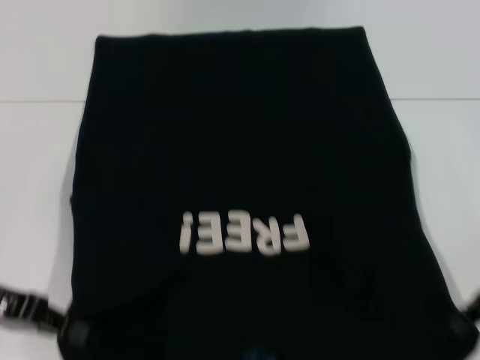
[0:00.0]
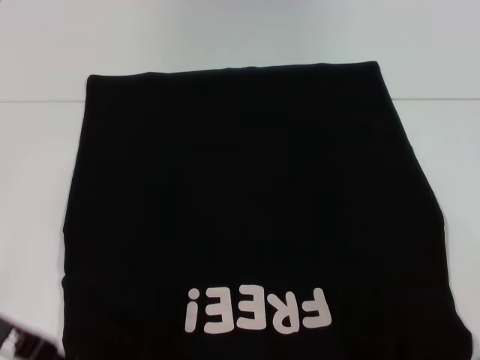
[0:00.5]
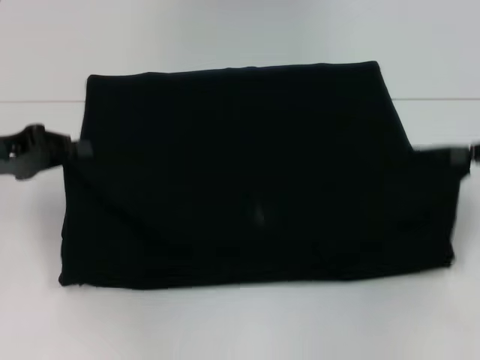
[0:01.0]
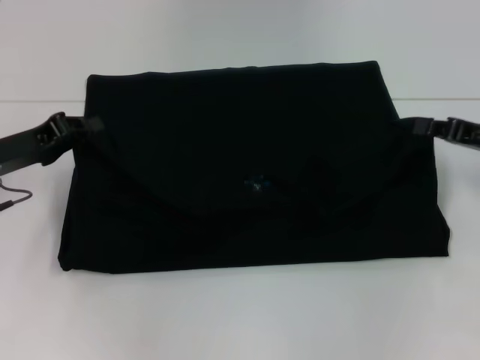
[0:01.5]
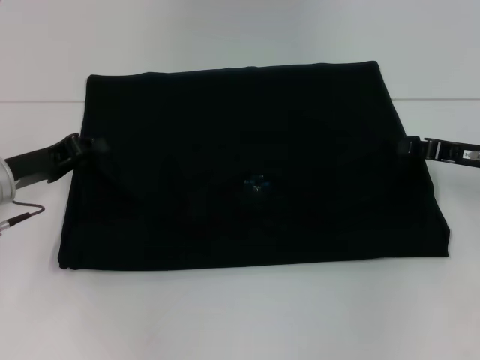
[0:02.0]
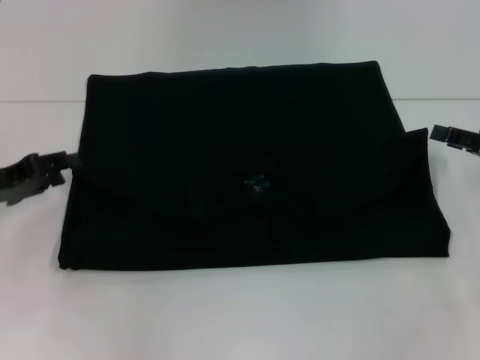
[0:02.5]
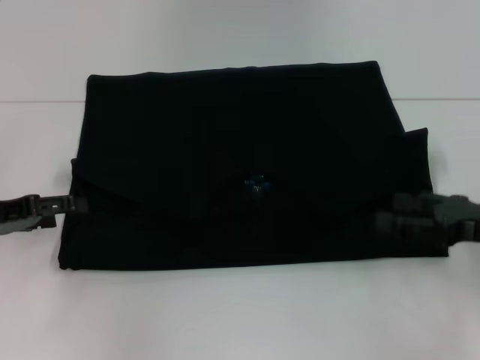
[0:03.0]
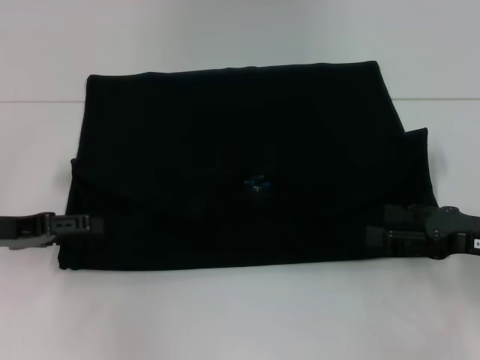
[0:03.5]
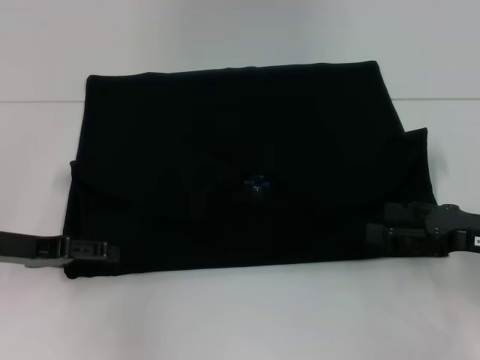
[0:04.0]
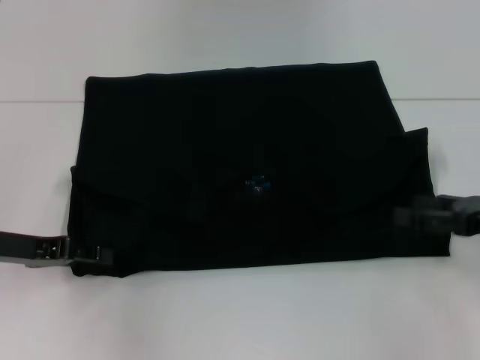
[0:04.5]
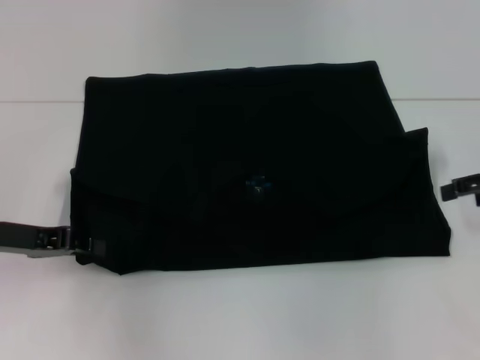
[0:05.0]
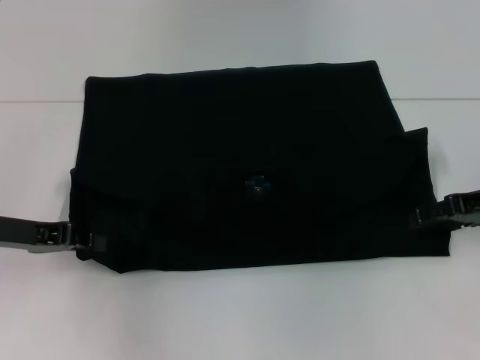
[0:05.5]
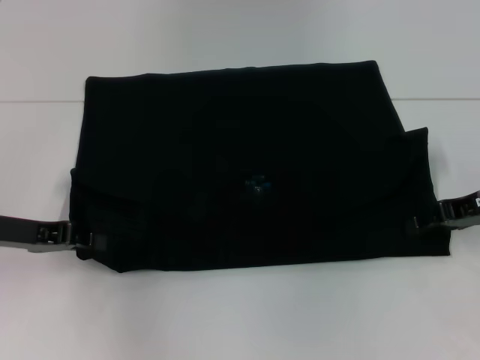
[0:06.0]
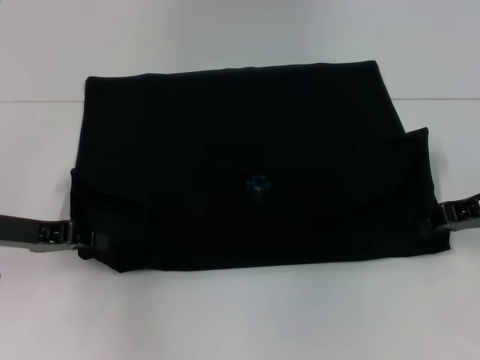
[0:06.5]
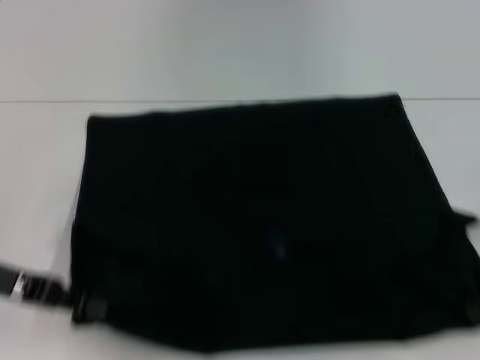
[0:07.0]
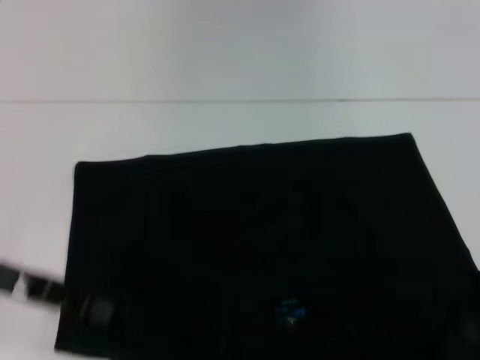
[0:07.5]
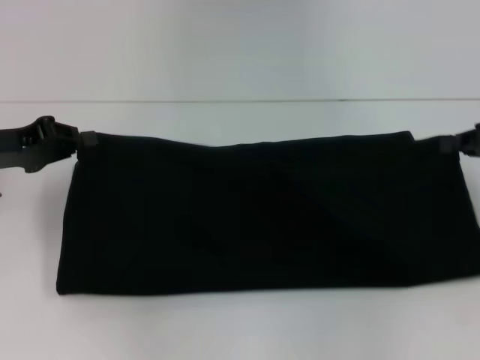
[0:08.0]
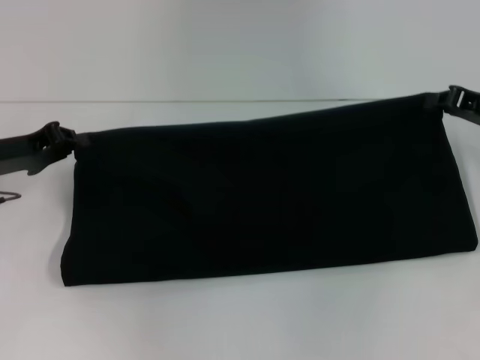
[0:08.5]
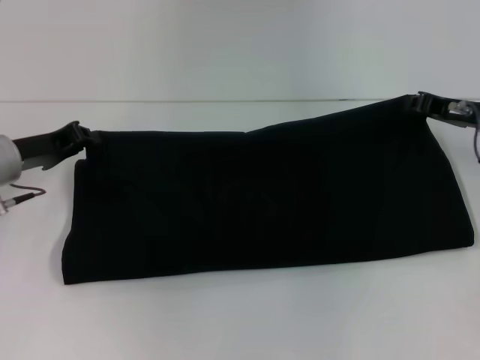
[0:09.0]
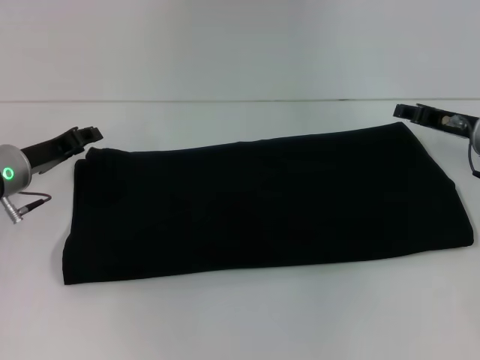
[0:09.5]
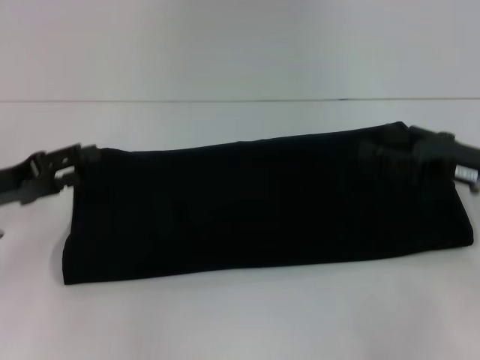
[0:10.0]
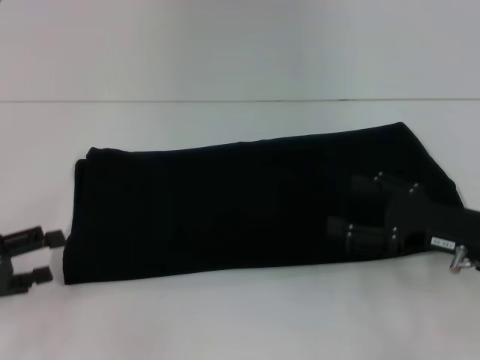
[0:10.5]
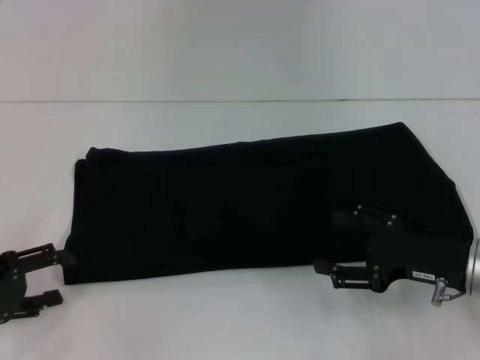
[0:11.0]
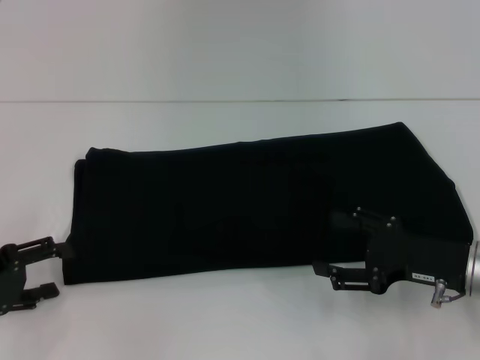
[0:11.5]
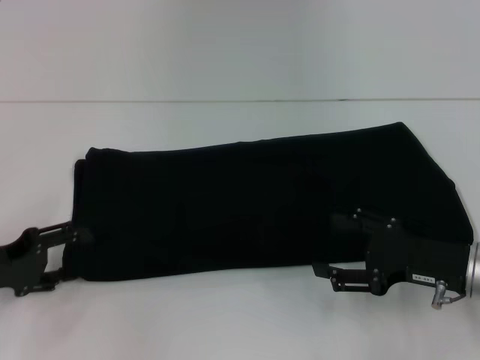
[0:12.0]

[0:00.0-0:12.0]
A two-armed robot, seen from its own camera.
Step, 0:00.0 to 0:02.5: Fold the clothes with your left hand.
Step, 0:00.0 to 0:02.5: Fold the clothes with your right hand.
Step, 0:03.0 to 0:07.0: Pull the clothes with your left hand.
Step, 0:03.0 to 0:07.0: Pull the clothes with your right hand.
Step, 0:07.5 to 0:09.5: Fold the clothes with your right hand.
0:00.0 to 0:02.0: The right gripper heads forward, covering approximately 5 cm, while the left gripper moves forward, approximately 10 cm.
0:02.0 to 0:04.0: The left gripper opens up, while the right gripper is displaced backward by roughly 10 cm, and opens.
0:04.0 to 0:06.0: The left gripper closes up, while the right gripper heads forward, covering about 10 cm.
0:06.0 to 0:08.0: The right gripper ends up approximately 5 cm from where it was, and closes its fingers.
0:08.0 to 0:10.0: The left gripper opens. The right gripper moves to the left, roughly 5 cm, and opens up.
0:10.0 to 0:12.0: The right gripper ends up some 10 cm from where it was; the left gripper changes place by some 5 cm.

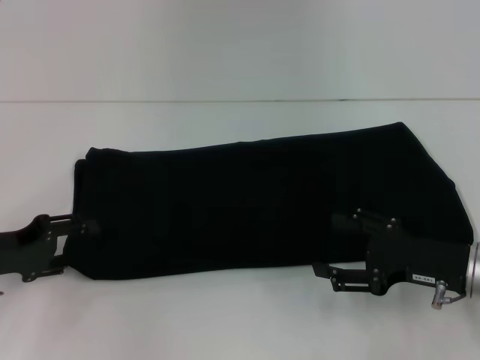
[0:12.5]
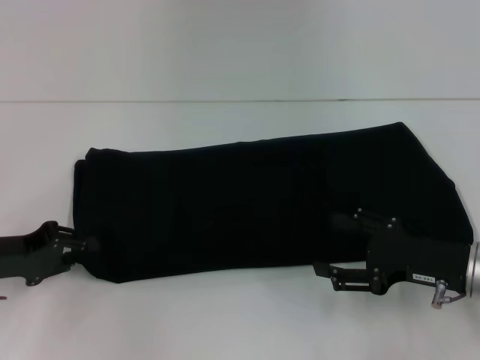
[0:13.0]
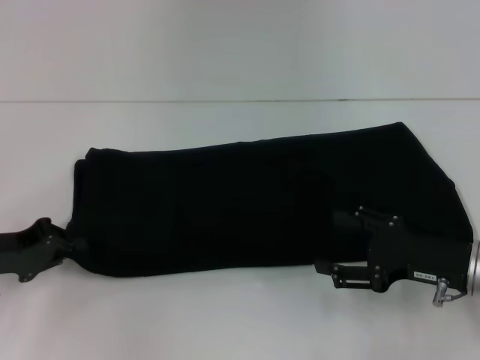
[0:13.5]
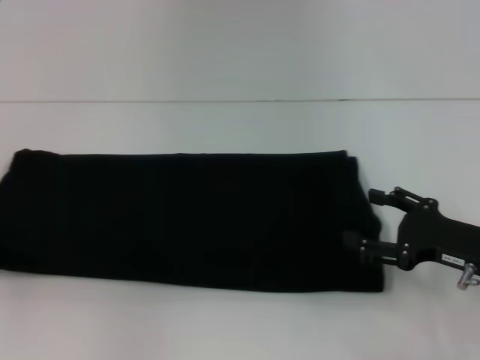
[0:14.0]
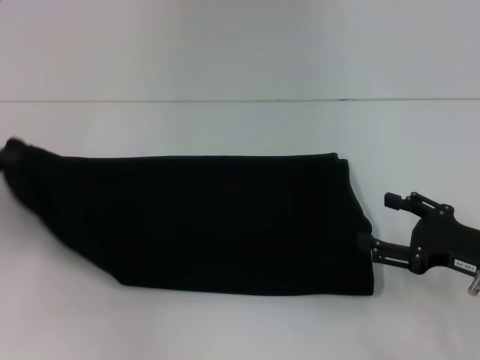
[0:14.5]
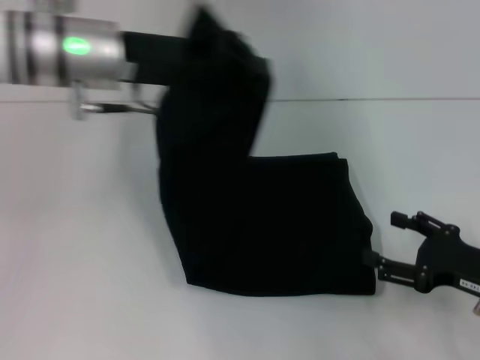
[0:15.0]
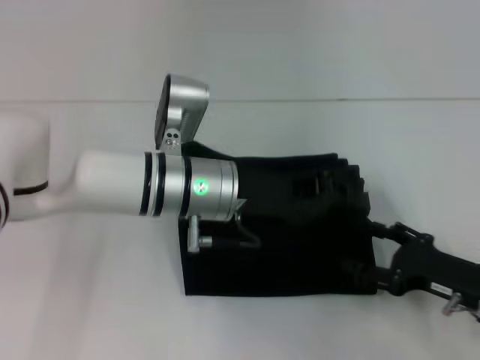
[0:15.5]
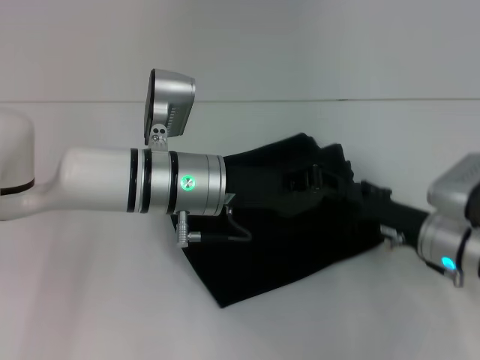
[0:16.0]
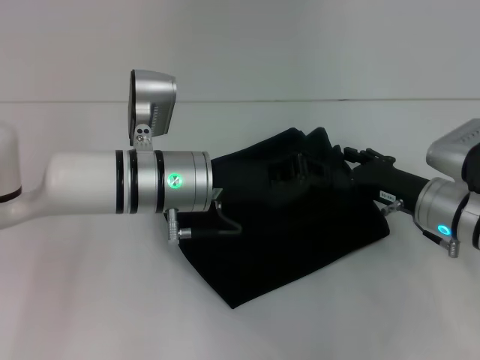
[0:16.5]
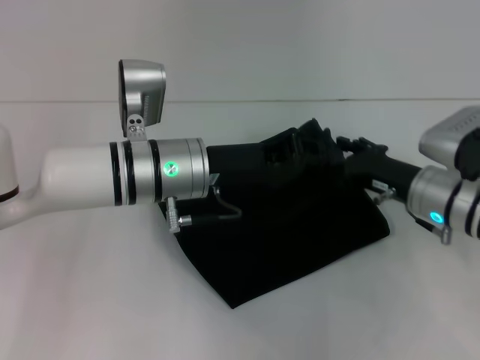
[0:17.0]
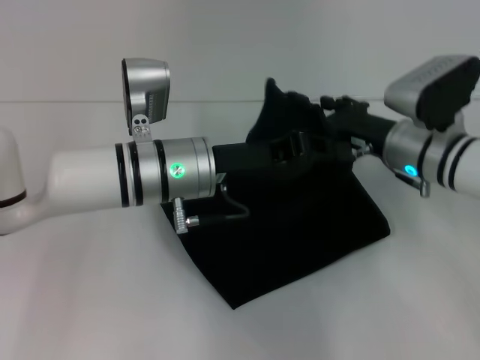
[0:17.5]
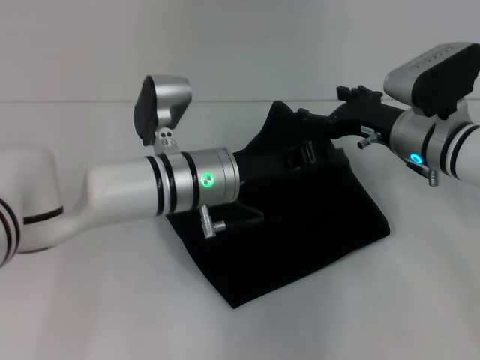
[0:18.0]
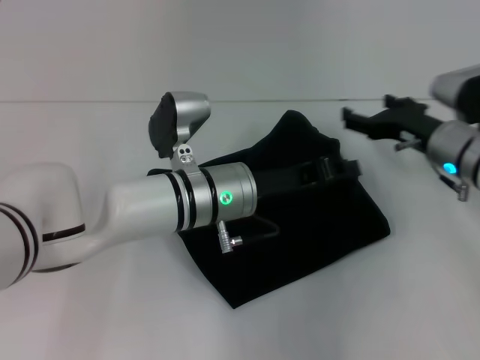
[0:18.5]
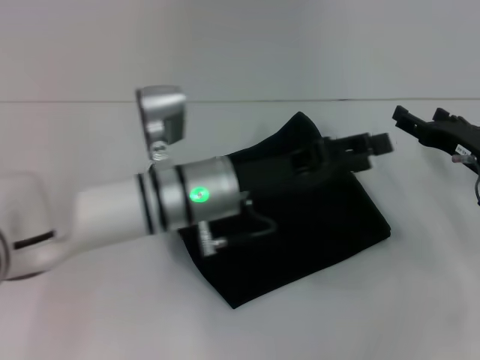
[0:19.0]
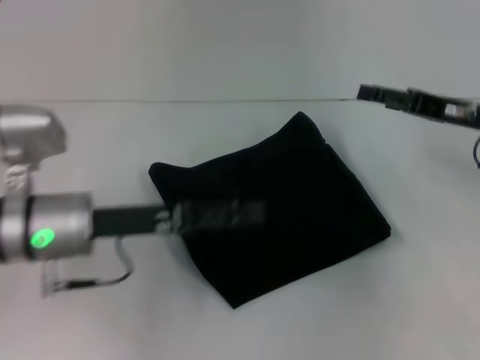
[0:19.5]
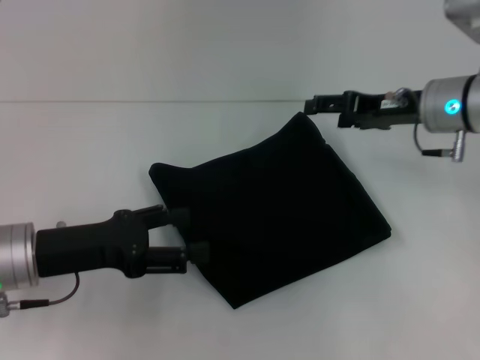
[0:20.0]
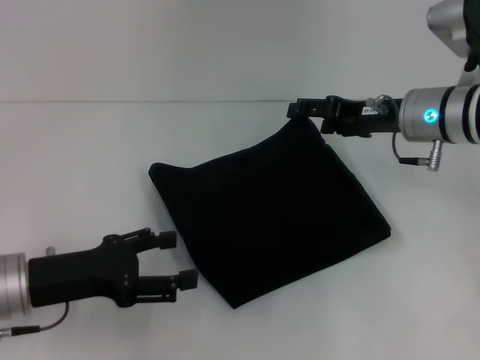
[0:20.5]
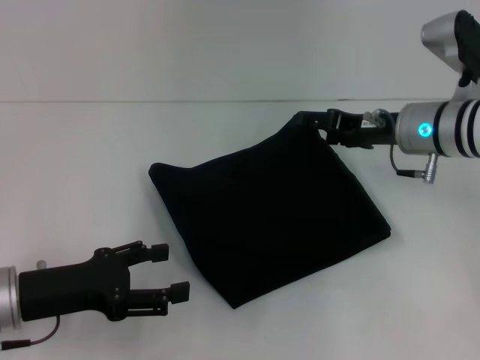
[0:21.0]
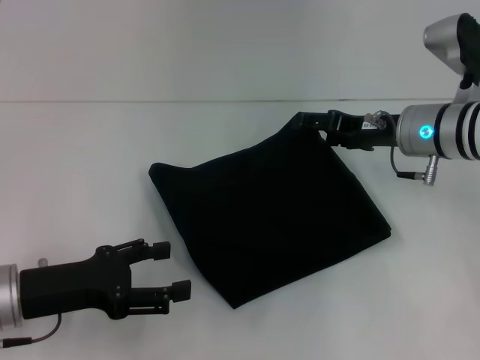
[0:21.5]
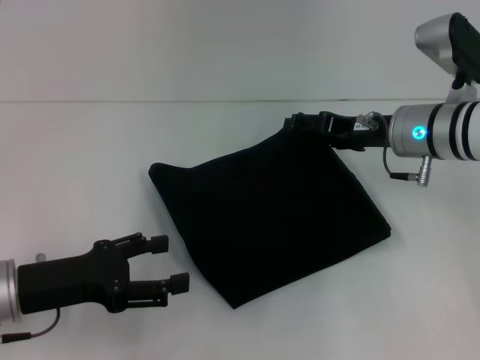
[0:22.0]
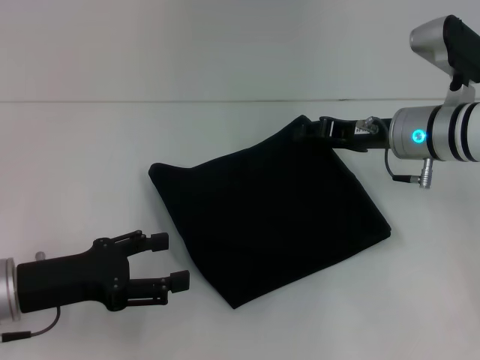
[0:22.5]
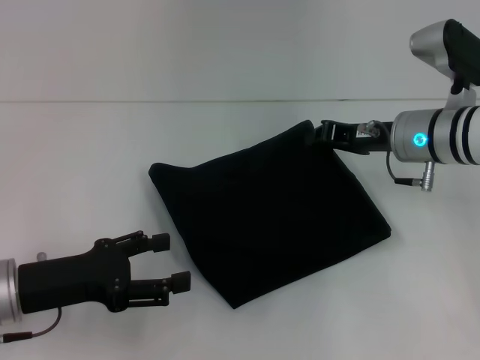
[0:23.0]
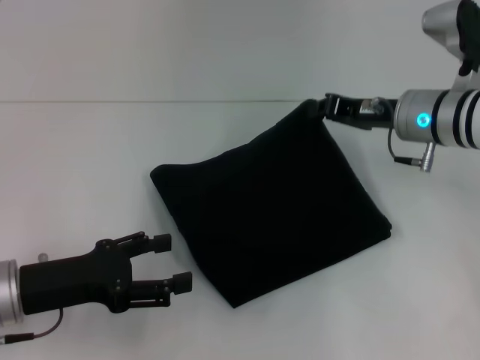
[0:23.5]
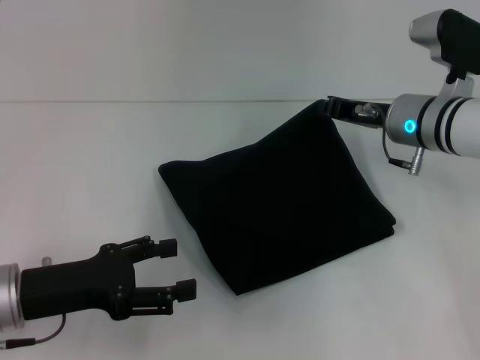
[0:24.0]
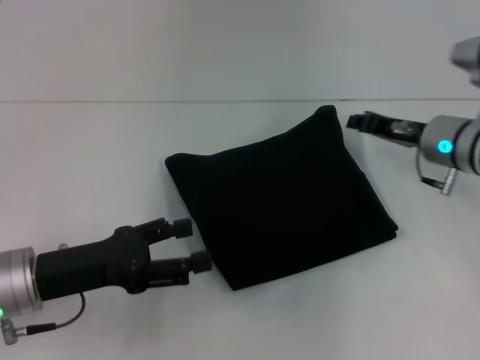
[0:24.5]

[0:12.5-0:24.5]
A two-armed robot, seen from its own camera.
Step, 0:12.5 to 0:19.0: Fold the clothes with your left hand.
0:12.5 to 0:14.5: The left gripper heads upward and to the left, covering about 10 cm, and closes up.
0:14.5 to 0:16.5: The left gripper moves to the right, approximately 30 cm, while the right gripper shifts about 10 cm forward and to the left.
0:16.5 to 0:18.5: The right gripper travels forward by roughly 5 cm. Meanwhile the left gripper ends up roughly 5 cm from where it was.
0:18.5 to 0:20.5: The left gripper goes roughly 20 cm to the left and backward, and opens. The right gripper is displaced upward by approximately 5 cm.
0:20.5 to 0:22.5: The grippers move only a little.
0:22.5 to 0:24.5: The right gripper closes up.

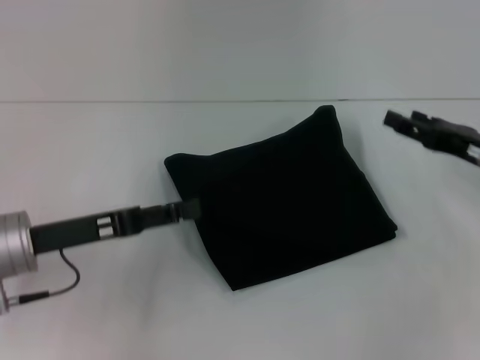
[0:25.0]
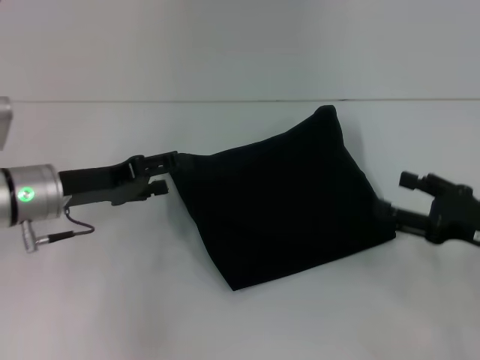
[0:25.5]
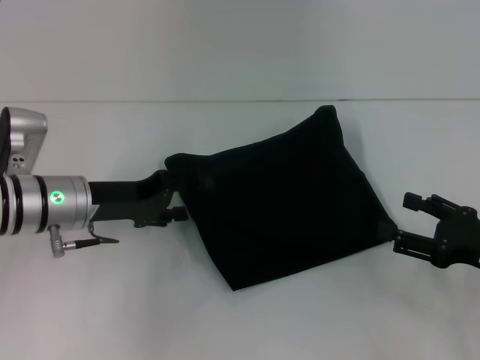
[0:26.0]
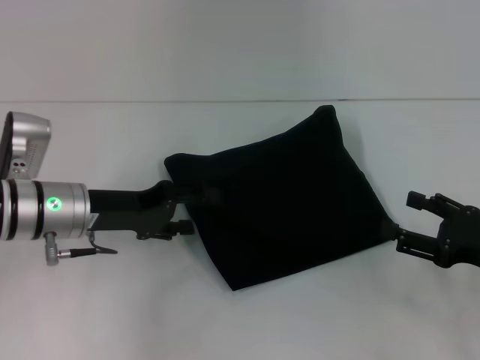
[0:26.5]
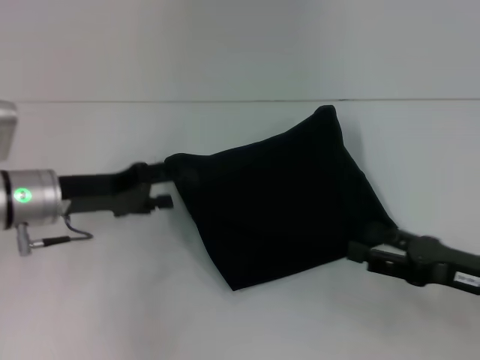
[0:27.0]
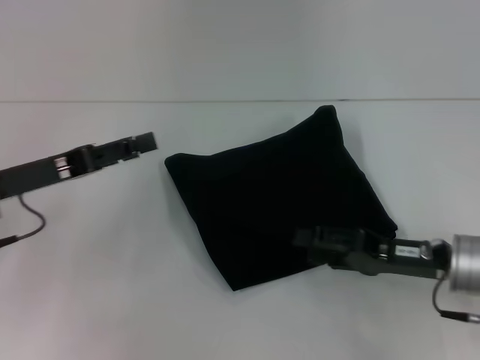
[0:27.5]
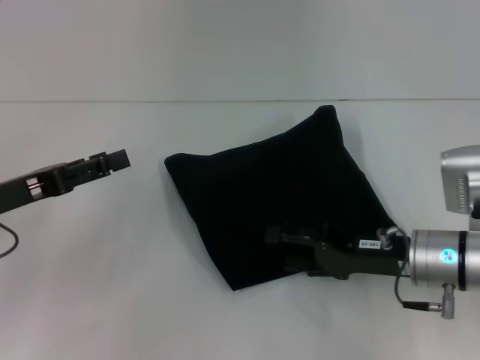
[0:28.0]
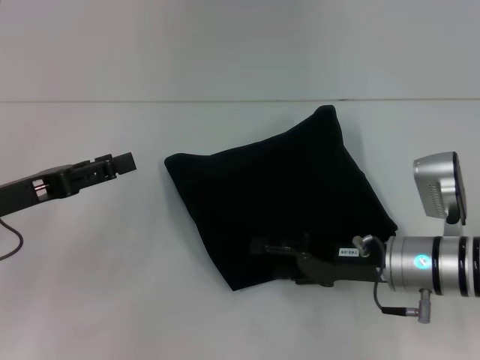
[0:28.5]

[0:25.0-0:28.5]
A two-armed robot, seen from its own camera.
0:25.0 to 0:27.0: The right gripper travels backward by approximately 10 cm. The left gripper goes about 5 cm forward.
0:27.0 to 0:28.5: The right gripper travels to the left and forward by roughly 10 cm. Meanwhile the left gripper heads to the left and backward, covering about 10 cm.
